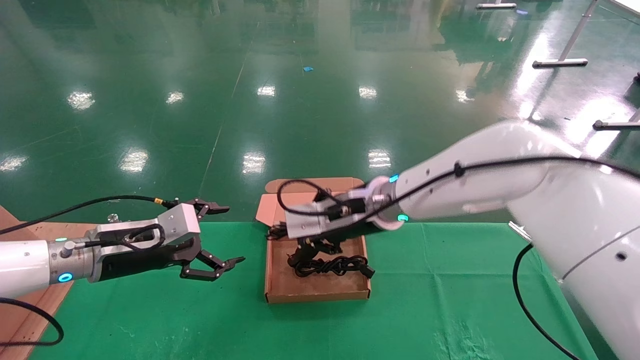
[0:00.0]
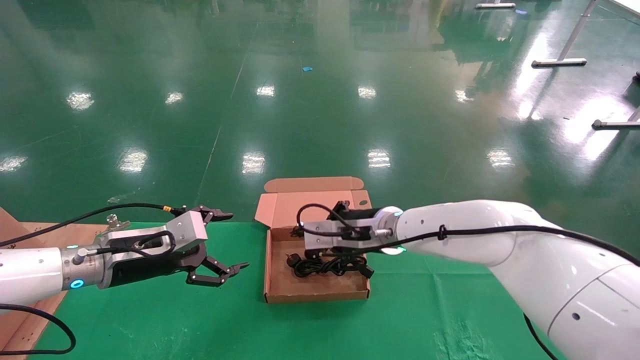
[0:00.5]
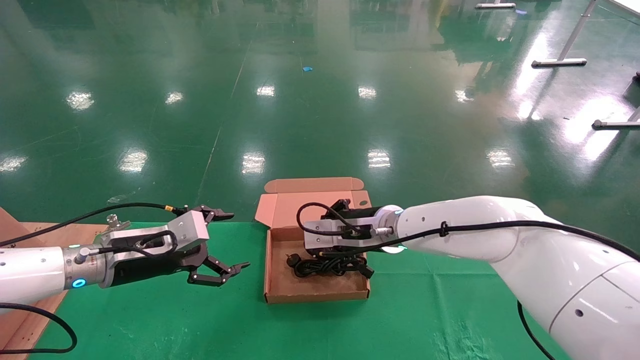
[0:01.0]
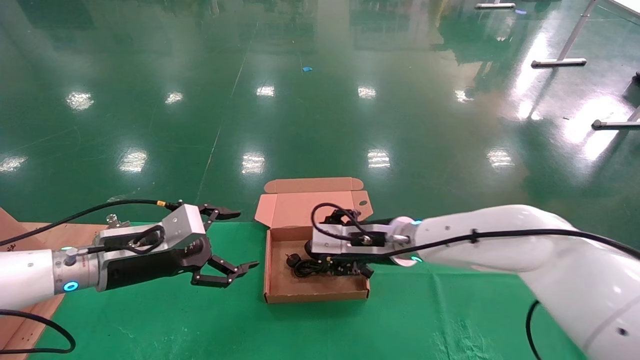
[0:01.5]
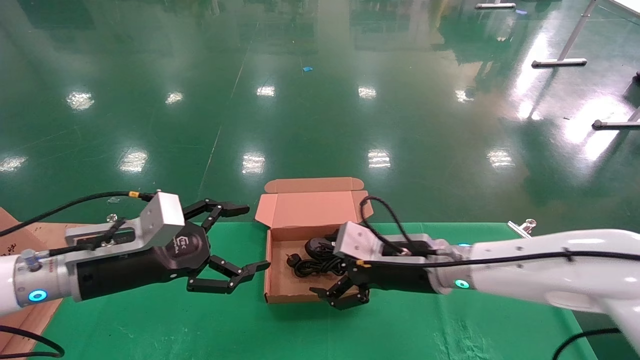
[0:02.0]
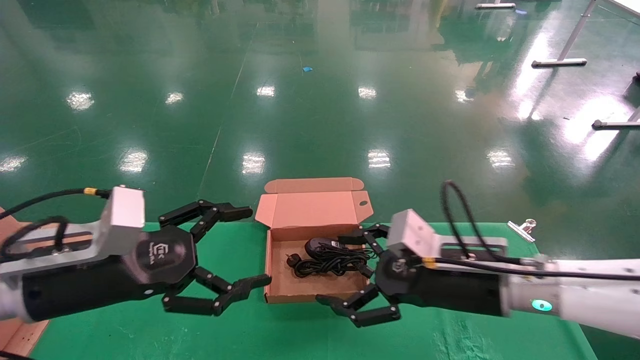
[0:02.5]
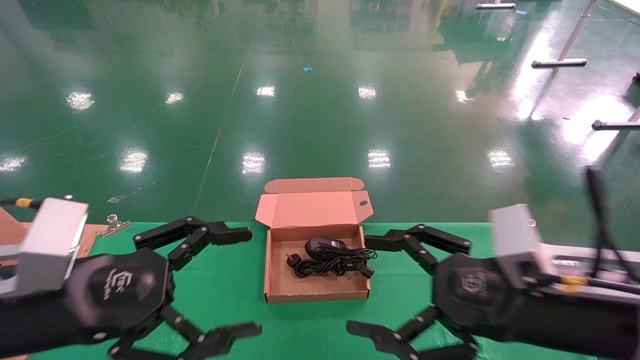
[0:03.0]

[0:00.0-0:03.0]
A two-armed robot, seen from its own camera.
0:00.0 to 0:01.5: The right gripper goes roughly 5 cm downward, and opens its fingers.
0:01.5 to 0:03.0: The left gripper moves backward, some 15 cm, while the right gripper travels backward and to the right by some 25 cm, and opens up.

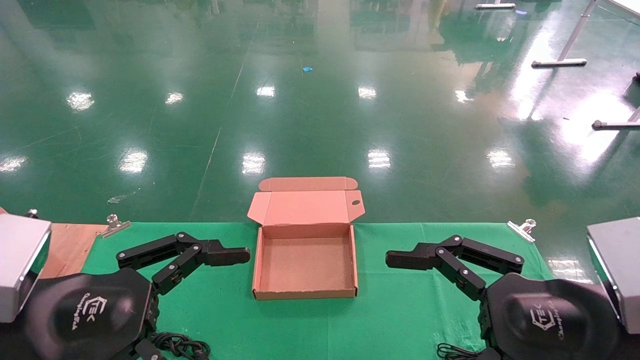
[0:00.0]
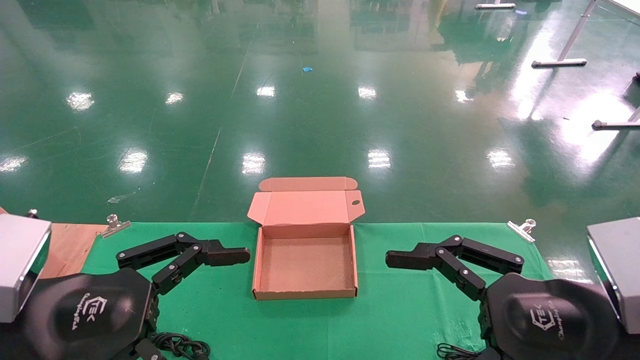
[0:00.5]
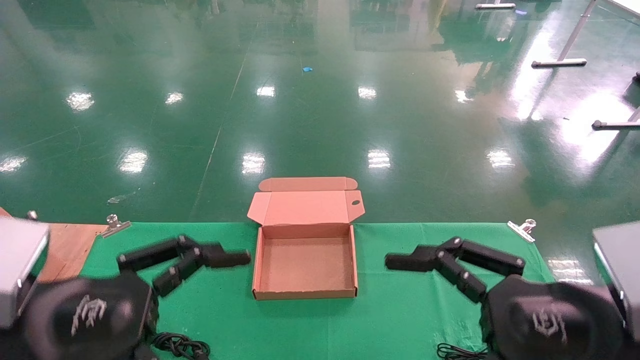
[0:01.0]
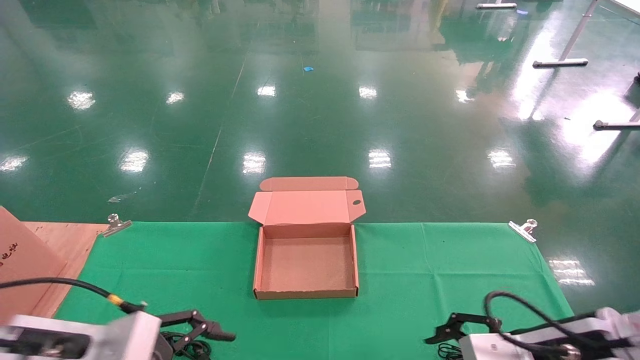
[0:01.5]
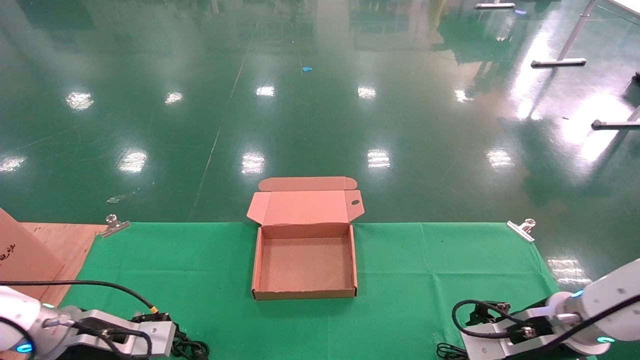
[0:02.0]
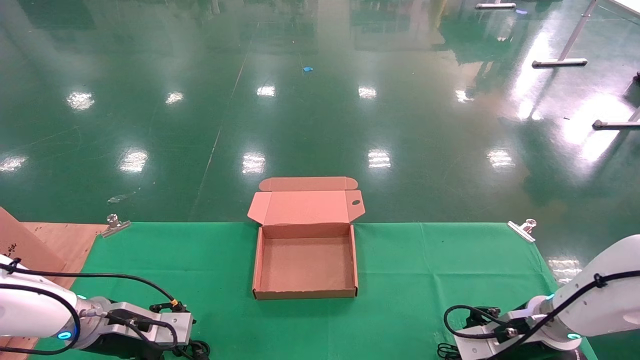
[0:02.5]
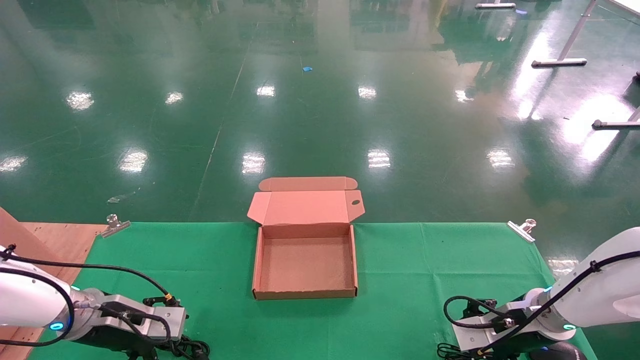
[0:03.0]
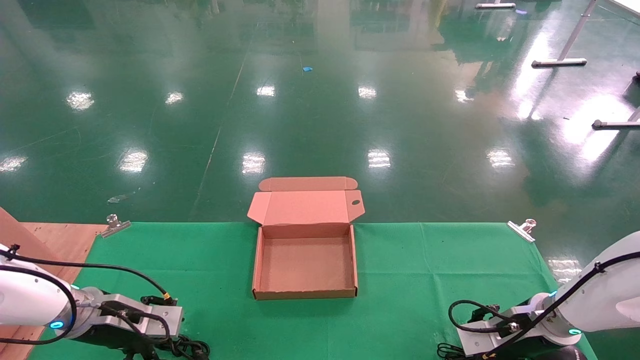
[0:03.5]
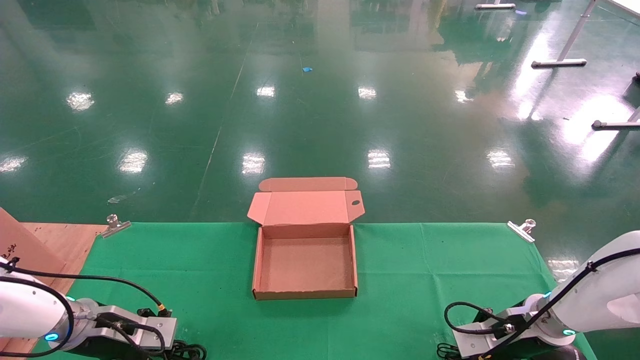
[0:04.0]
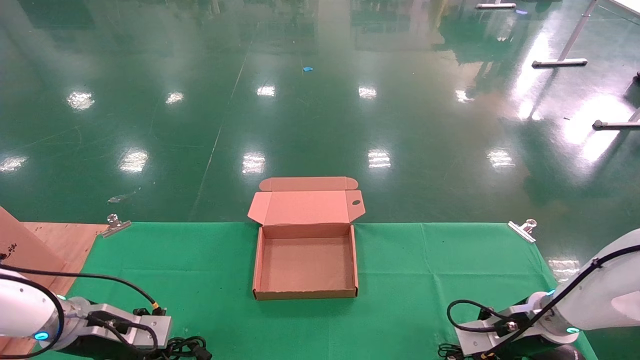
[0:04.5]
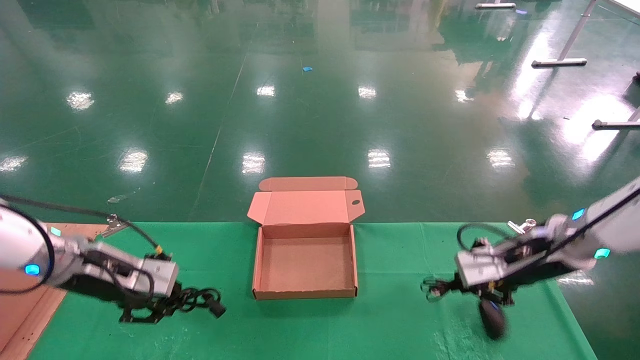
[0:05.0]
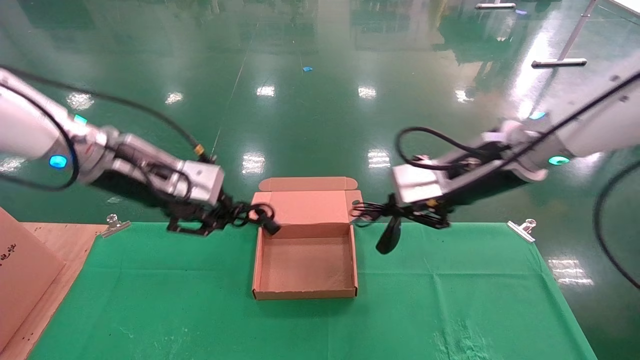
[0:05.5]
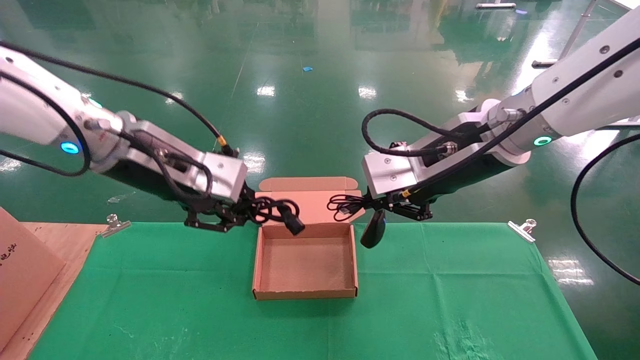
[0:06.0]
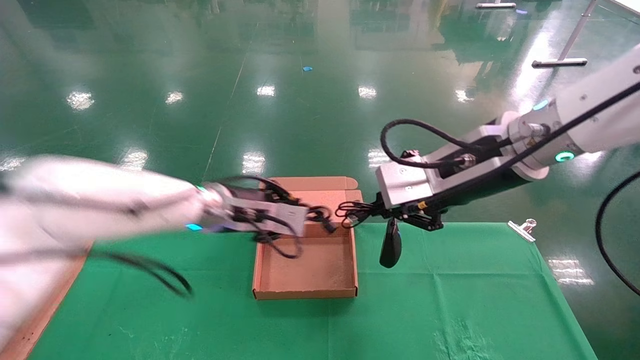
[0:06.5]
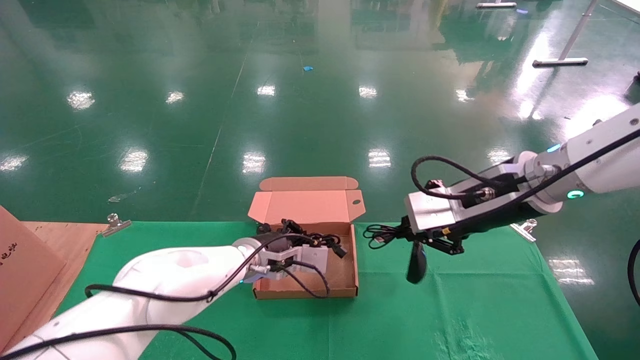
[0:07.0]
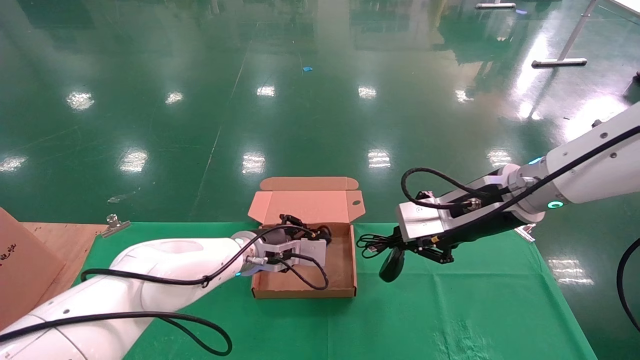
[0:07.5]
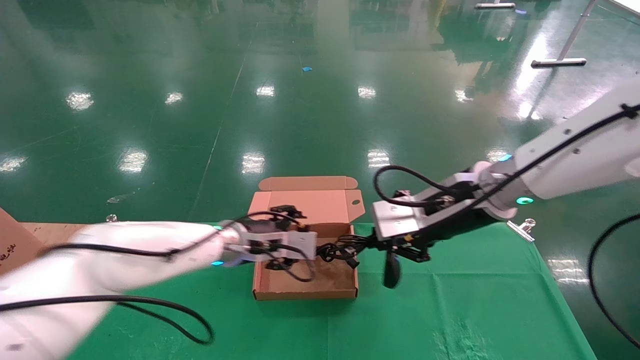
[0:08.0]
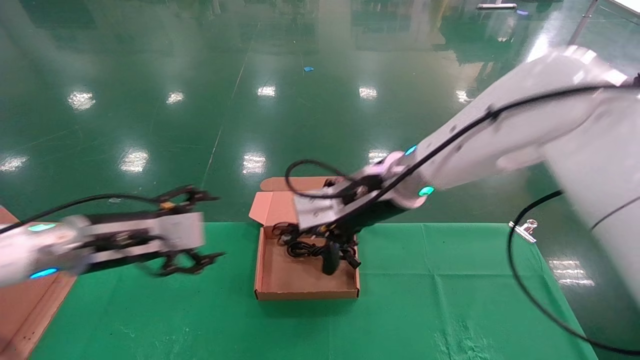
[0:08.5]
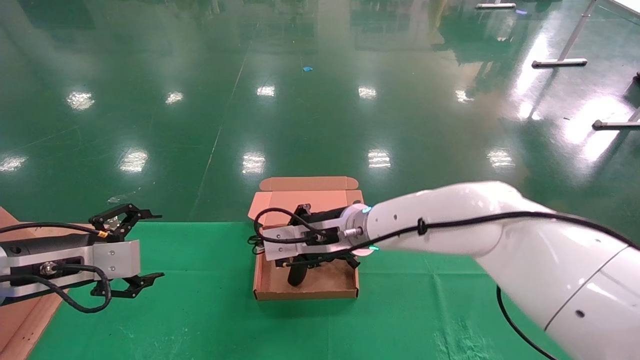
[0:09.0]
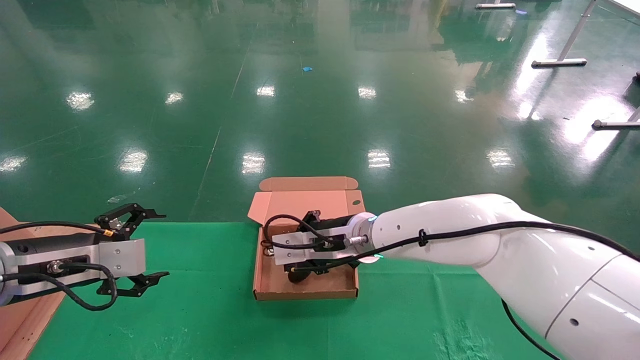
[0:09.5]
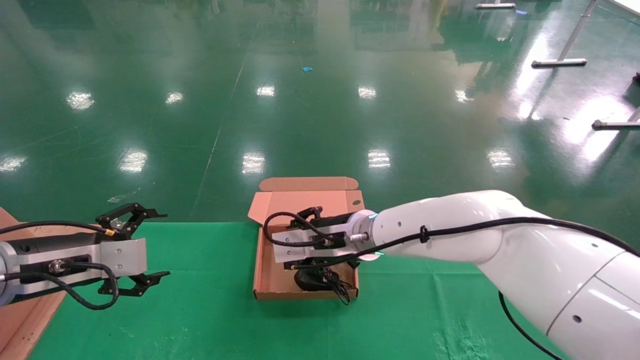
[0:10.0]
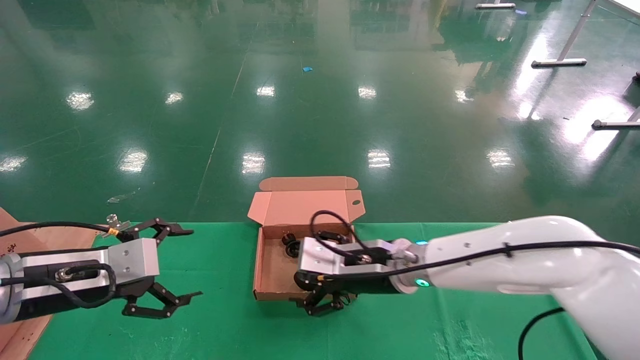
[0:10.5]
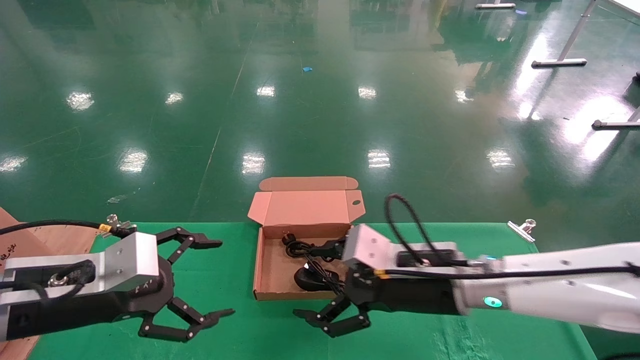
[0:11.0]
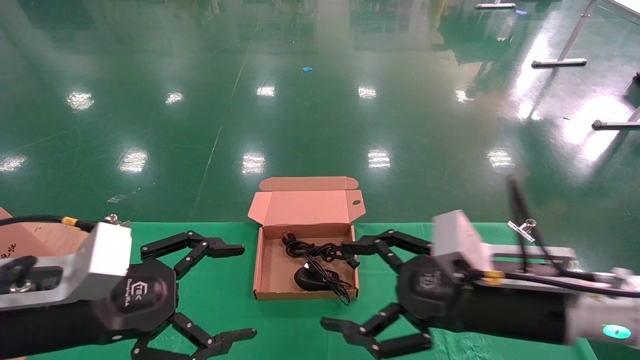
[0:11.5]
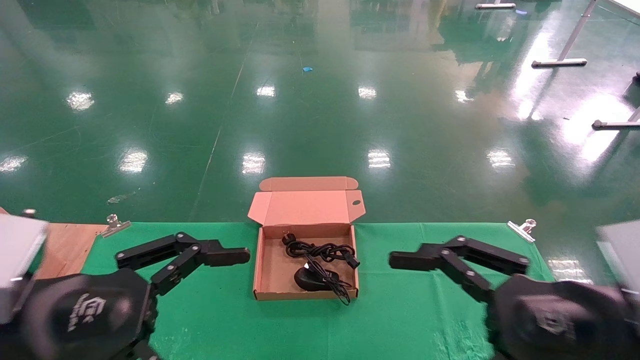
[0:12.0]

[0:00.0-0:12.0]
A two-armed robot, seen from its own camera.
Step, 0:02.0 to 0:04.5: Grab and lift both the mouse and power cord from the accessory packaging area at the same time.
Step, 0:05.0 to 0:10.0: Place the mouse and power cord into the box.
0:00.0 to 0:02.0: The two grippers go about 20 cm forward and downward.
0:02.0 to 0:04.0: The right gripper is displaced forward and downward by roughly 10 cm, and closes up. Meanwhile the left gripper moves approximately 5 cm, and closes its fingers.
0:04.0 to 0:06.0: The right gripper moves upward and to the left, approximately 35 cm; the left gripper heads upward and to the right, covering about 30 cm.
0:06.0 to 0:08.0: The left gripper travels downward and forward by some 20 cm, and opens up, while the right gripper goes approximately 5 cm downward.
0:08.0 to 0:10.0: The right gripper shifts about 15 cm to the left, downward and forward, and opens up; the left gripper moves to the left and backward, about 25 cm, and opens.
0:10.0 to 0:12.0: The left gripper goes some 15 cm backward and to the right; the right gripper shifts approximately 30 cm backward and to the right, and opens its fingers.
